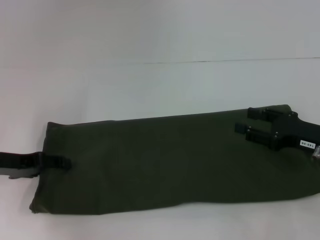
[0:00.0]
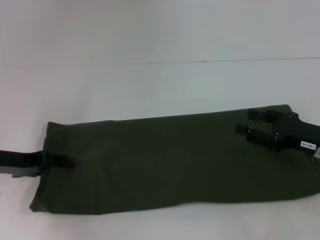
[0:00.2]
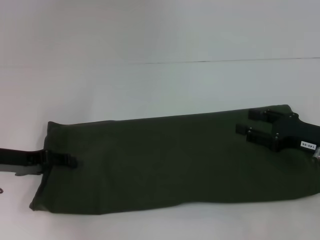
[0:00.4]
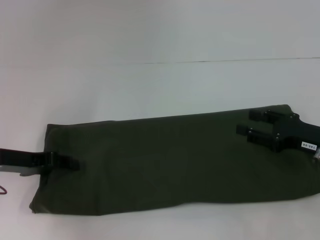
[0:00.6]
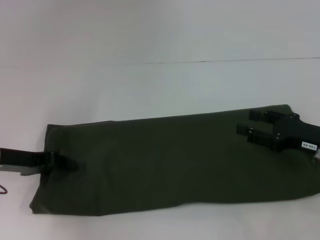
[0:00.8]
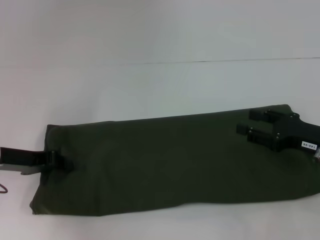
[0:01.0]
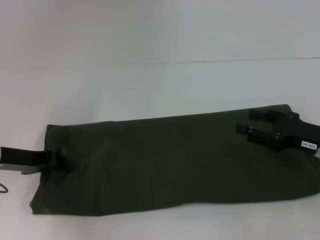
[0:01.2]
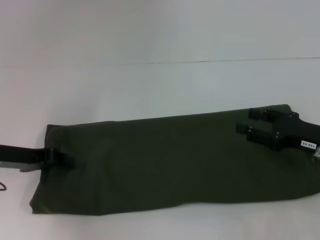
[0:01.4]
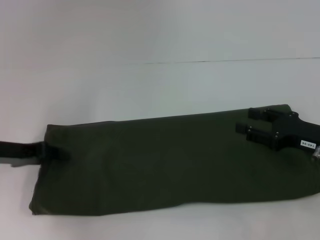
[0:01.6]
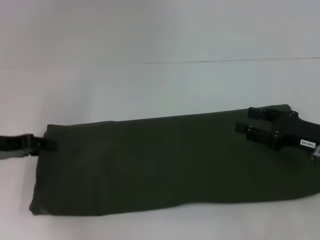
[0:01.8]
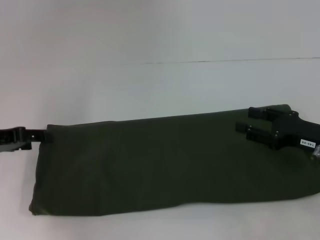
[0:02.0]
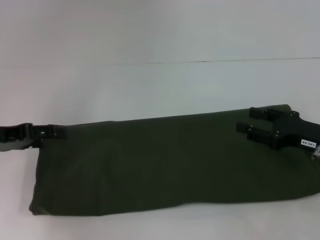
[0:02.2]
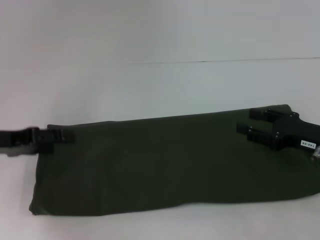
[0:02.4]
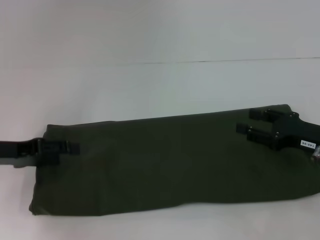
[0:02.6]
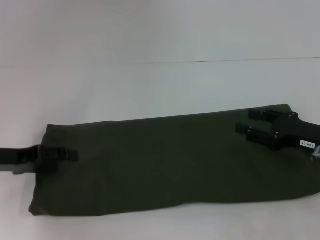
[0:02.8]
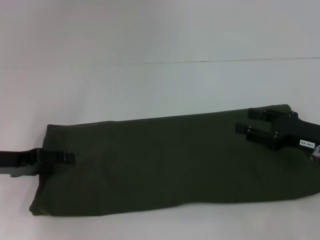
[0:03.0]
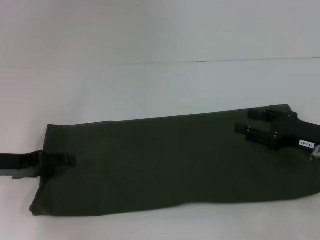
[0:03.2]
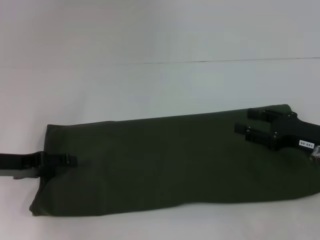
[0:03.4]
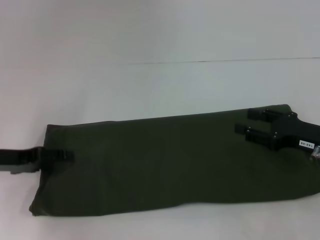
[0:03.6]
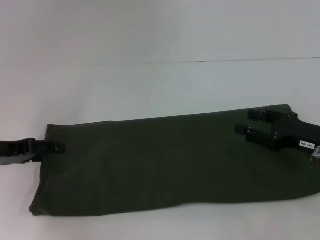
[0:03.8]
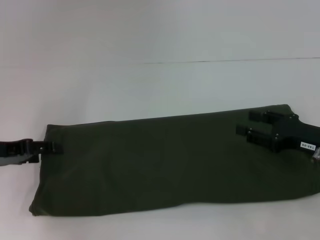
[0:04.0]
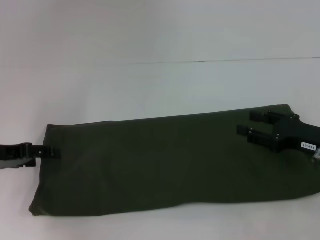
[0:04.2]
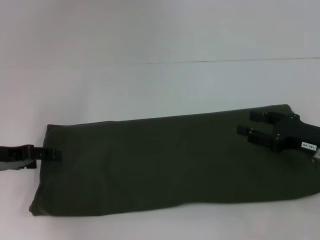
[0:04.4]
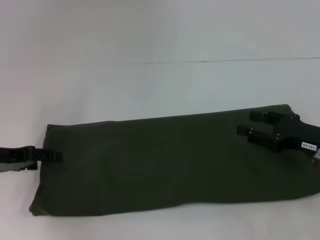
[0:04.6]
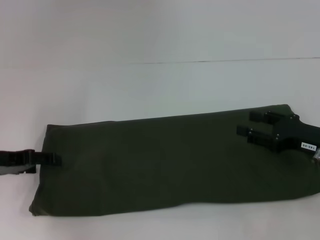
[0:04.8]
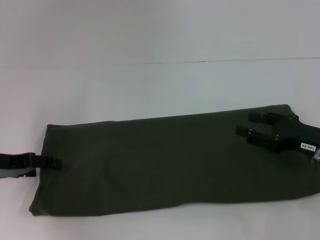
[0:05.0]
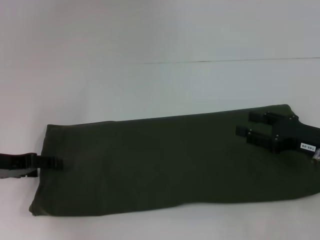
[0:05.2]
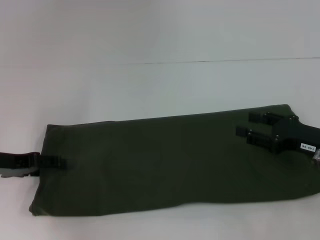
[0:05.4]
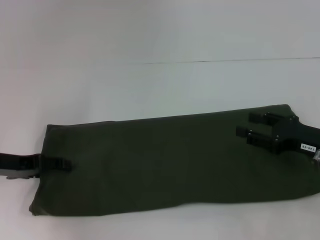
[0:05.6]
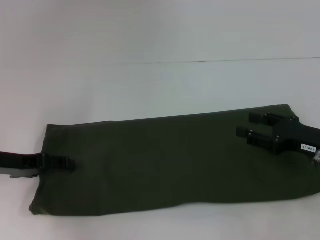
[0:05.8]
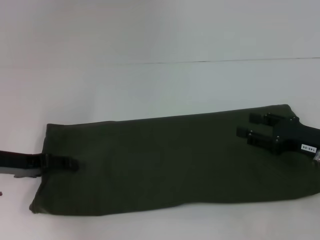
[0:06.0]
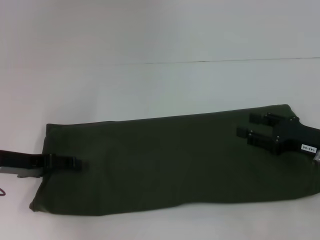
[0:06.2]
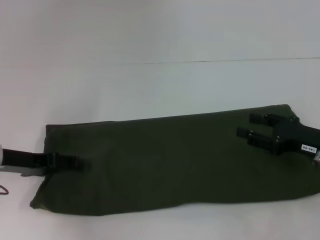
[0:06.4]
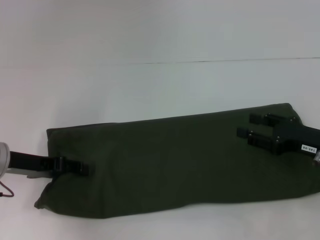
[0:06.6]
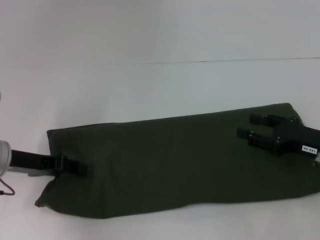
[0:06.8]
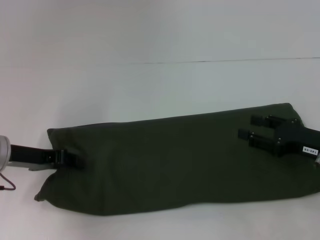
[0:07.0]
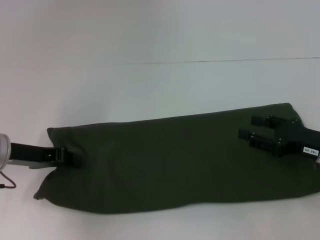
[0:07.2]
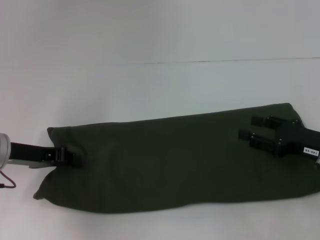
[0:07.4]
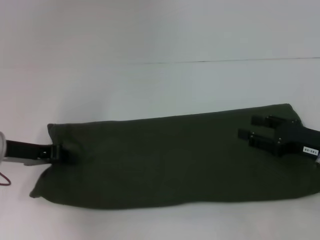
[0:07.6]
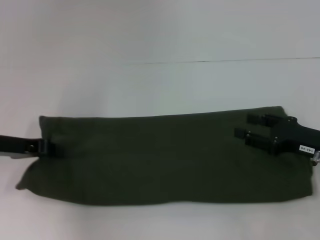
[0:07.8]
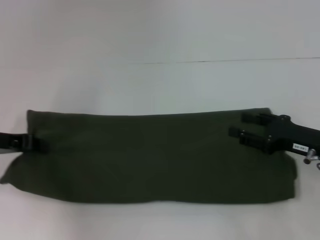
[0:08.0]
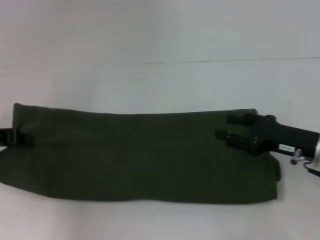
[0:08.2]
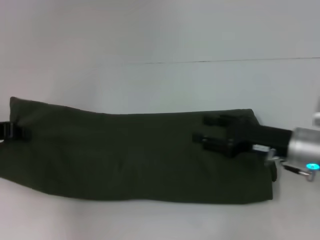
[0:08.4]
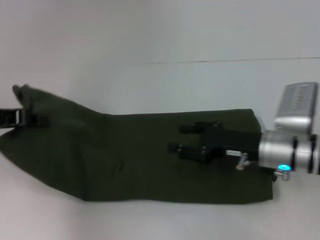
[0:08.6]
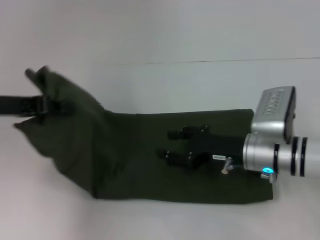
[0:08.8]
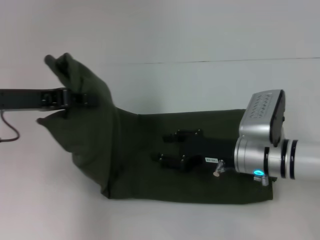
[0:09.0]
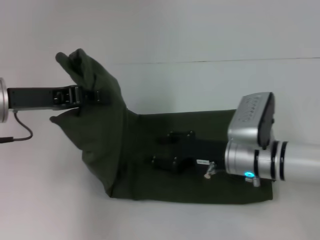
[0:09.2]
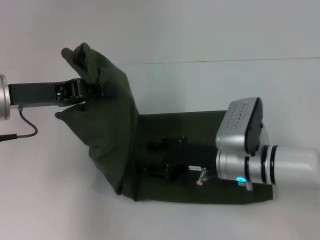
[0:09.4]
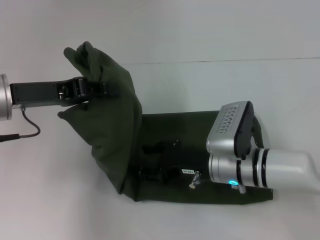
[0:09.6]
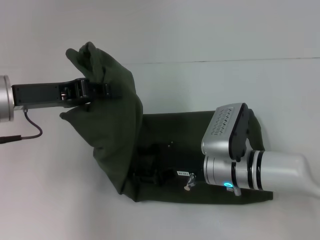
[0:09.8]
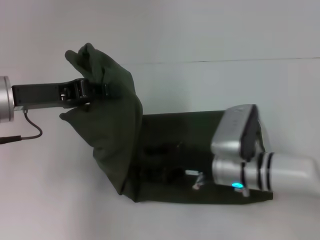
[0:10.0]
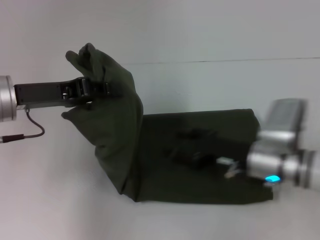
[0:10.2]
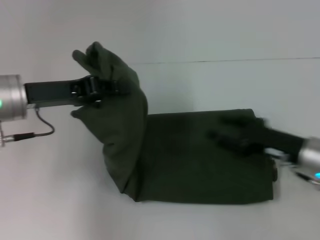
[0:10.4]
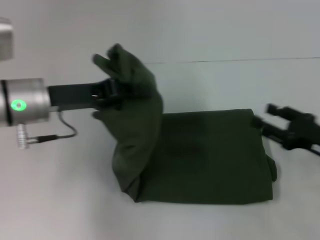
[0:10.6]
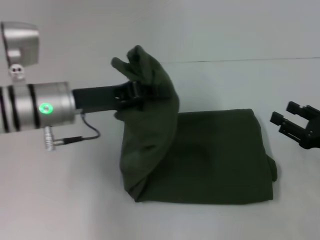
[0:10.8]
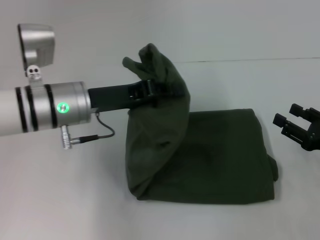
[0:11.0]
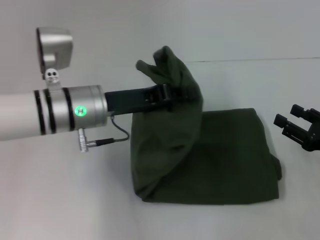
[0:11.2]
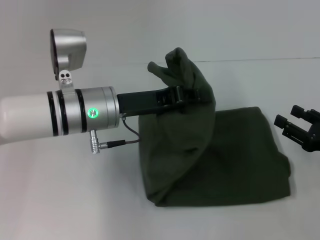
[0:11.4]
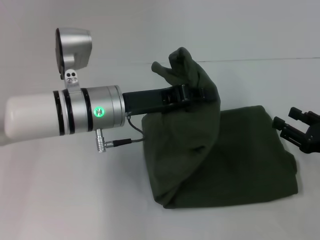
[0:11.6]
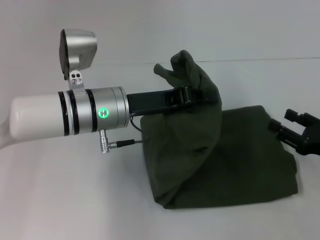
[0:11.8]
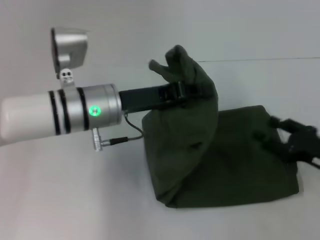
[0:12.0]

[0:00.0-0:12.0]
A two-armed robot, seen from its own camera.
0:00.0 to 0:01.6: The left gripper closes.
0:01.6 to 0:03.0: The left gripper opens up.
0:03.0 to 0:06.0: The grippers stay close to where they were, moving slightly.
0:06.0 to 0:07.6: The left gripper closes.
0:07.6 to 0:09.0: The left gripper is displaced upward by approximately 10 cm; the right gripper is displaced to the left by roughly 15 cm.
0:09.0 to 0:10.4: The right gripper heads to the right, covering about 10 cm.
0:10.4 to 0:12.0: The left gripper is displaced to the right by some 10 cm, while the right gripper shifts approximately 5 cm to the right.

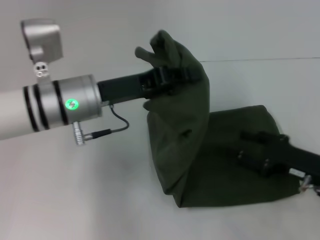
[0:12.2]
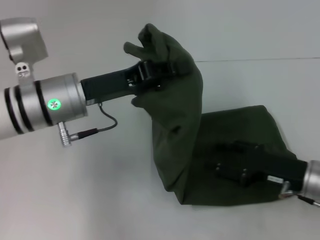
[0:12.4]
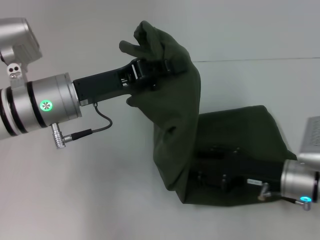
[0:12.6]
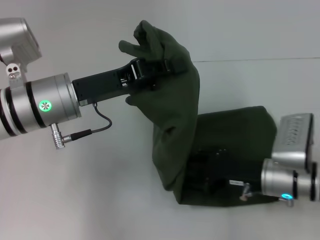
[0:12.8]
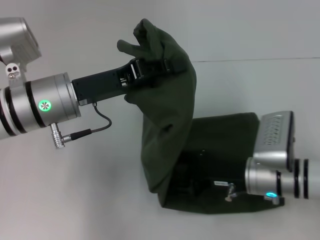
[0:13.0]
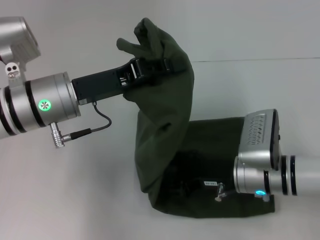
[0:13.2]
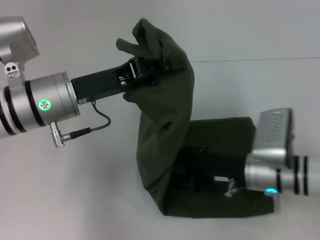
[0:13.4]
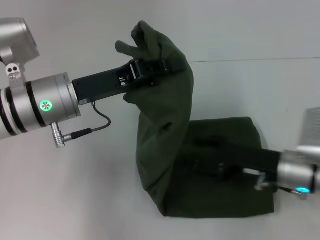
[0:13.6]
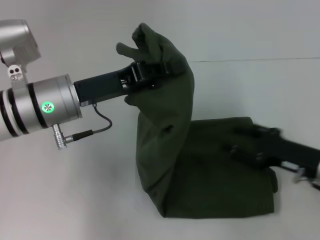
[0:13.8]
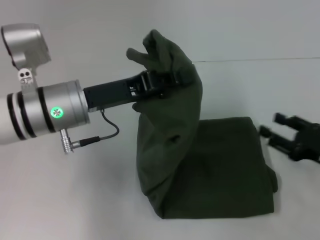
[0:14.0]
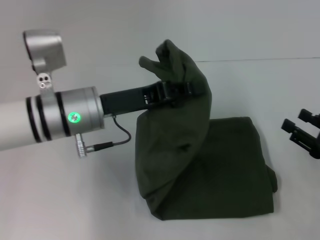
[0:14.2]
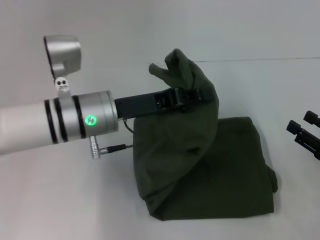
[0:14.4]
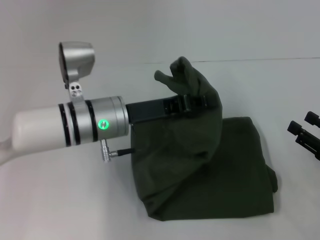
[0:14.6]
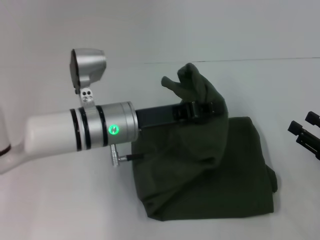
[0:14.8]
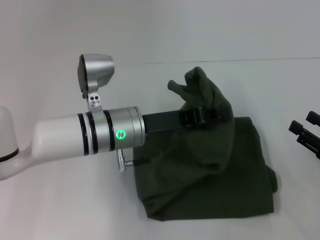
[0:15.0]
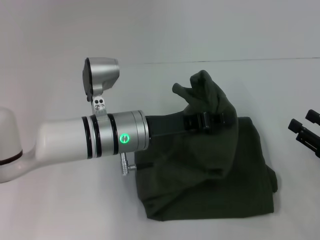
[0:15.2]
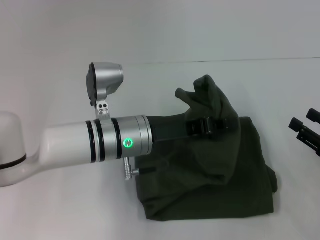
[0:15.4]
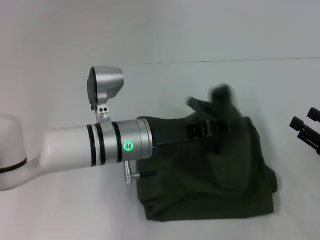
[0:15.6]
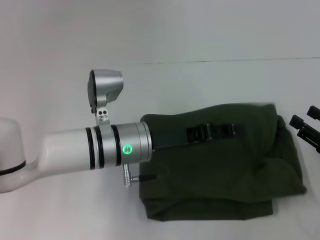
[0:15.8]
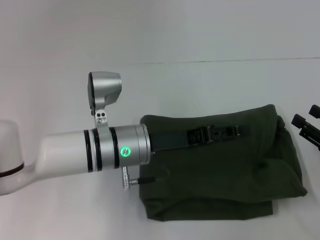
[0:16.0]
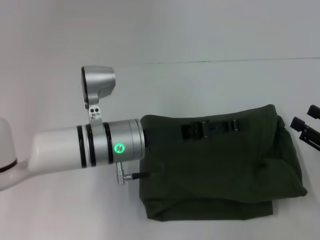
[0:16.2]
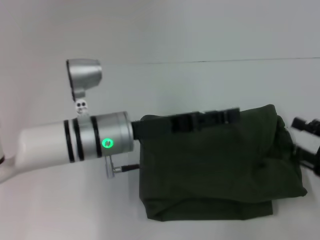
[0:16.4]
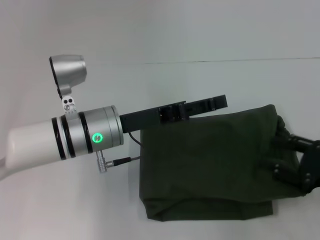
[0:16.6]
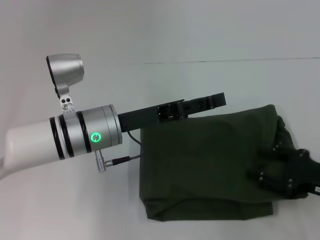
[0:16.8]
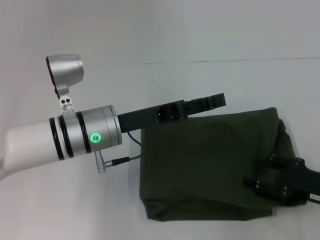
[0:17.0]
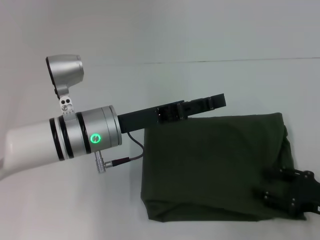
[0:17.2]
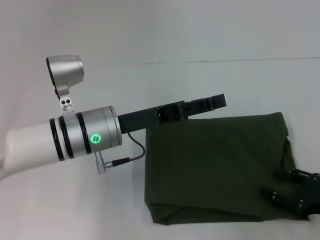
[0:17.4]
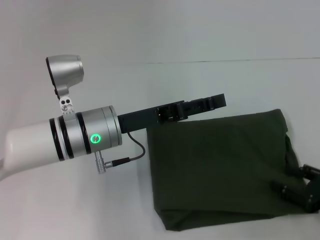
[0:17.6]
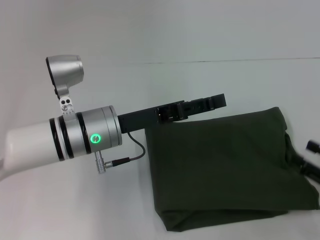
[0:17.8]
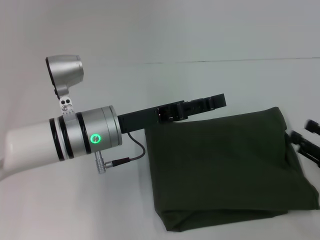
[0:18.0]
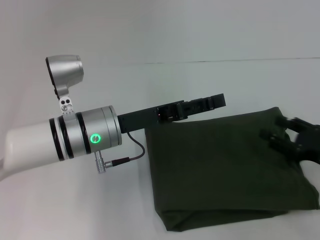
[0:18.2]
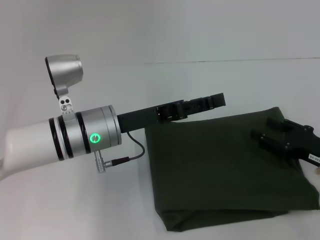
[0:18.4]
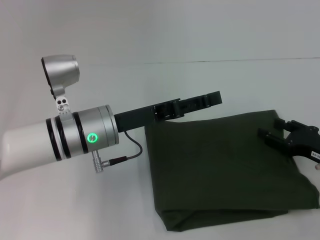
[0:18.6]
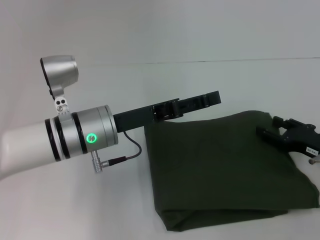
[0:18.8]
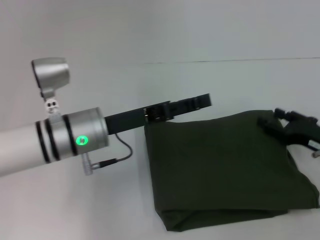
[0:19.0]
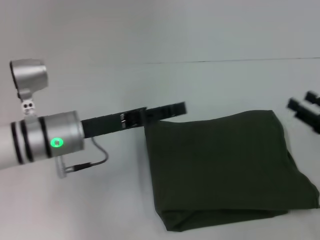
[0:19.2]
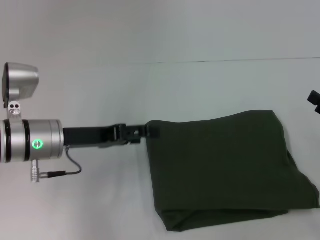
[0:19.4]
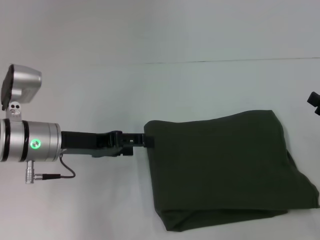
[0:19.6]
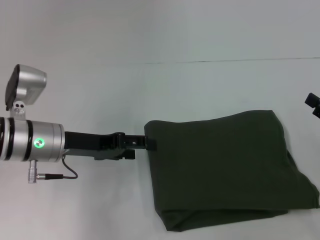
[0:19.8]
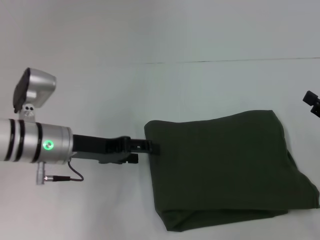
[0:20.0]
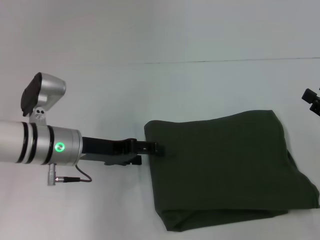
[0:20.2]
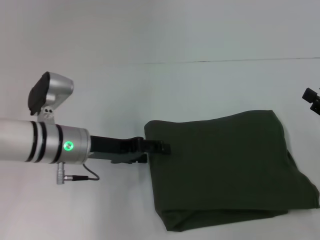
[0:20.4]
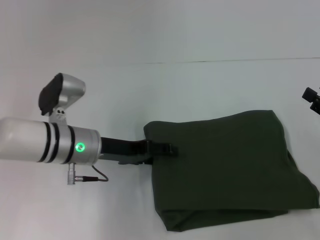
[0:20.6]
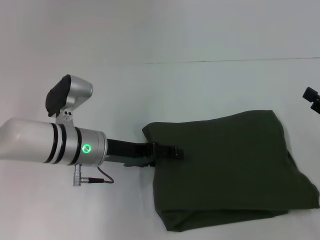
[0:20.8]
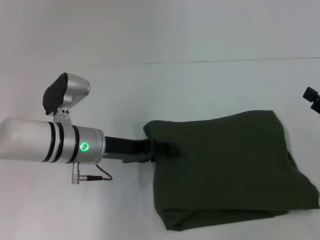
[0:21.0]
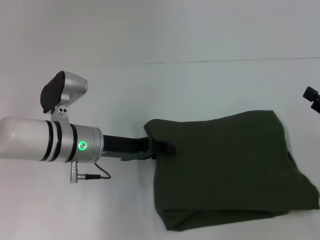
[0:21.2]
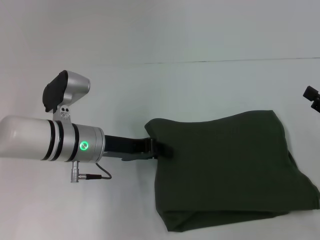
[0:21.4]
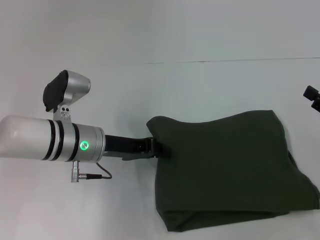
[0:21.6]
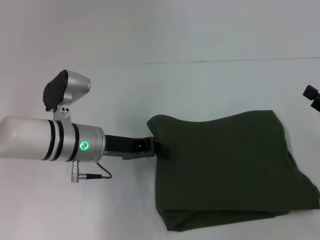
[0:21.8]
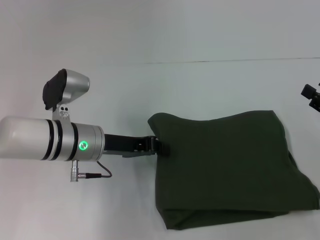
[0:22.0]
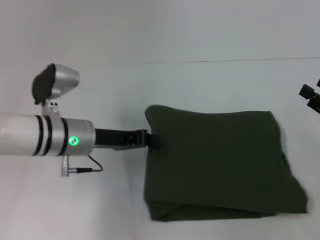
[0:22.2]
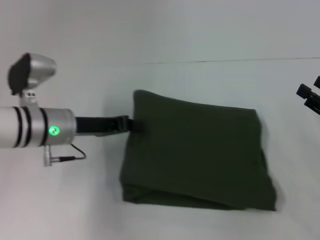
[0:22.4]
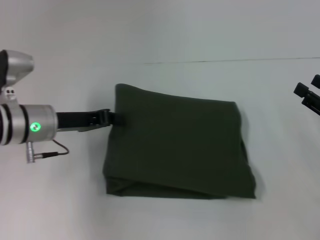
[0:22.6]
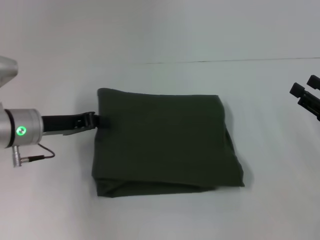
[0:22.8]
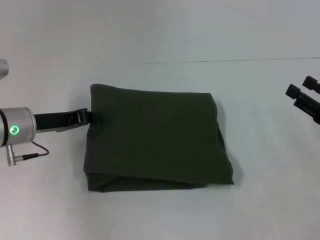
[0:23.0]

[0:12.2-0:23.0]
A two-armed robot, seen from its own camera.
Step, 0:12.2 to 0:16.0: Fold the clothes with your left hand.
0:12.2 to 0:13.8: The right gripper goes to the left and returns, about 10 cm each way.
0:13.8 to 0:15.2: The right gripper shifts about 10 cm to the right. The left gripper shifts some 10 cm to the right and downward.
0:15.2 to 0:16.8: The left gripper opens its fingers.
0:18.4 to 0:20.0: The left gripper travels to the left by roughly 5 cm, while the right gripper changes place by approximately 5 cm.
0:20.0 to 0:21.4: The left gripper closes its fingers.
0:21.4 to 0:23.0: The left gripper moves to the left, approximately 10 cm, and closes up.
